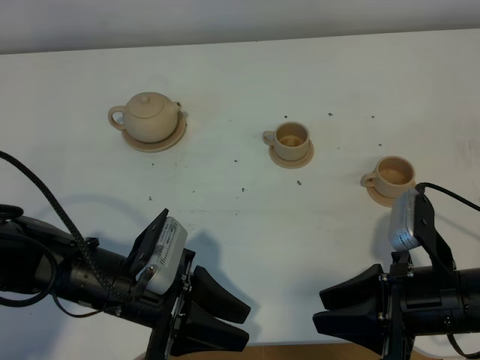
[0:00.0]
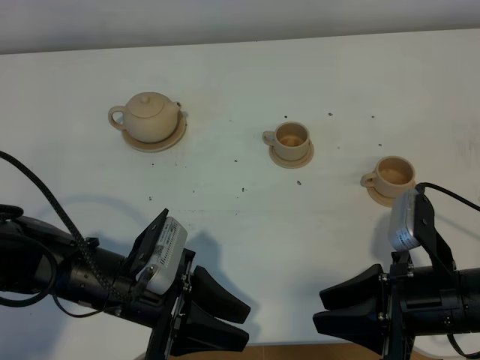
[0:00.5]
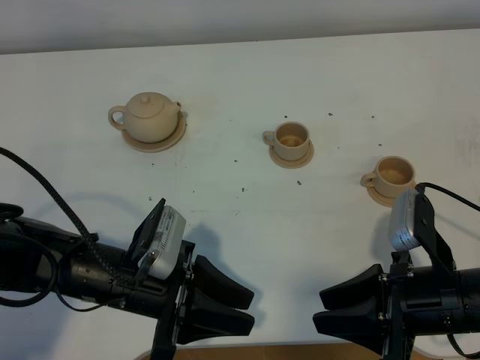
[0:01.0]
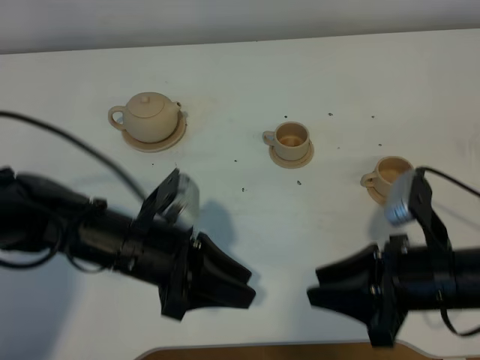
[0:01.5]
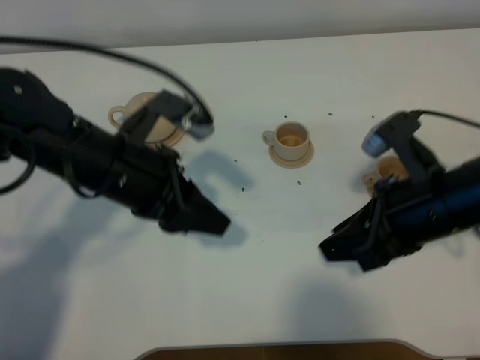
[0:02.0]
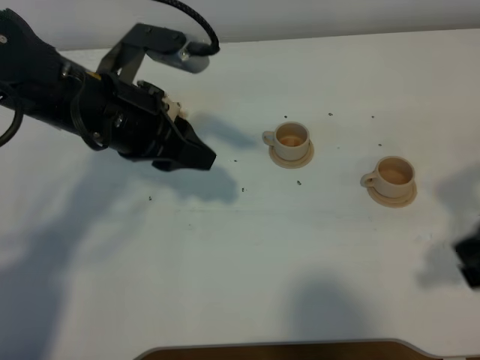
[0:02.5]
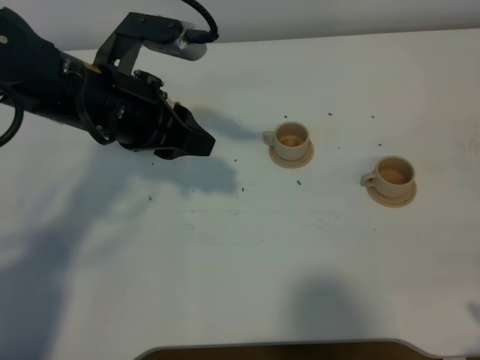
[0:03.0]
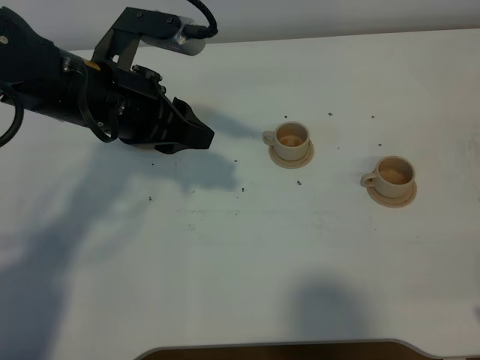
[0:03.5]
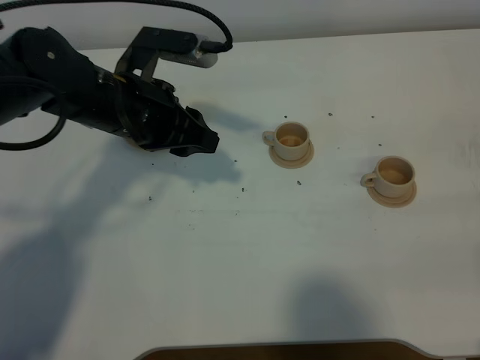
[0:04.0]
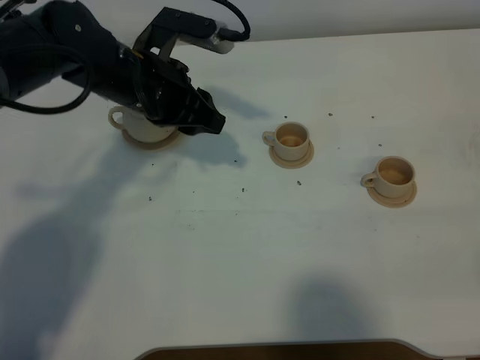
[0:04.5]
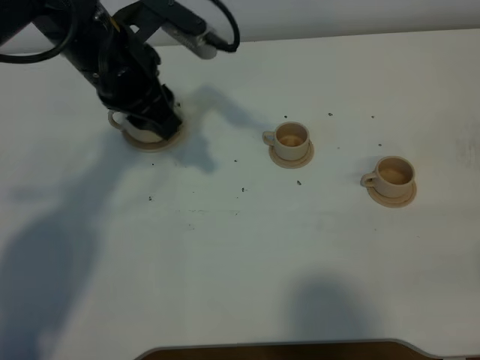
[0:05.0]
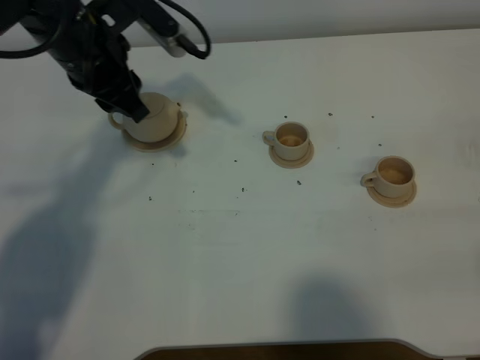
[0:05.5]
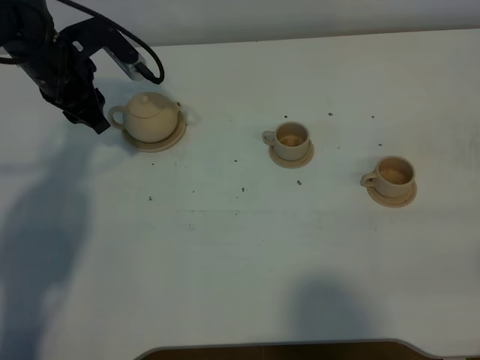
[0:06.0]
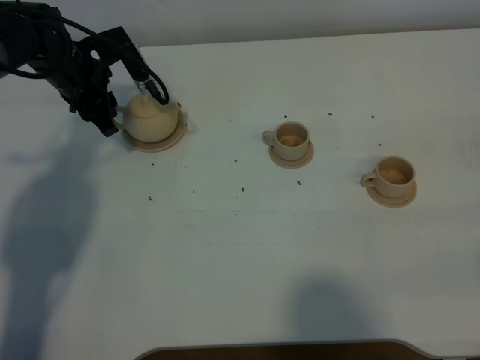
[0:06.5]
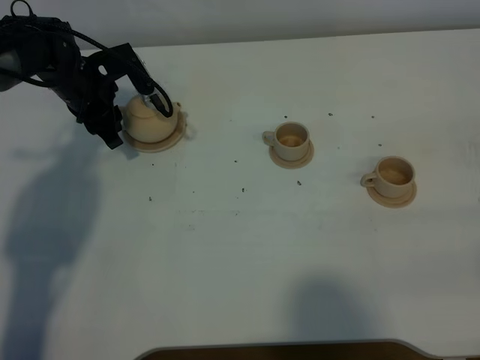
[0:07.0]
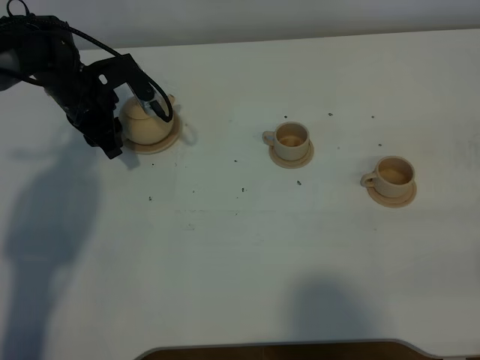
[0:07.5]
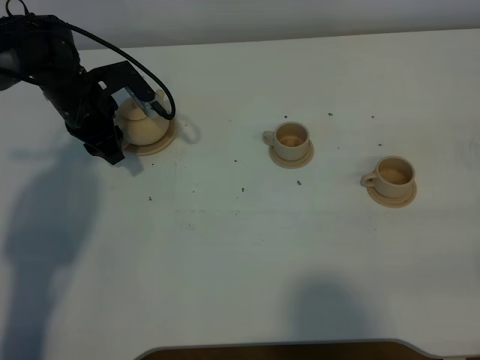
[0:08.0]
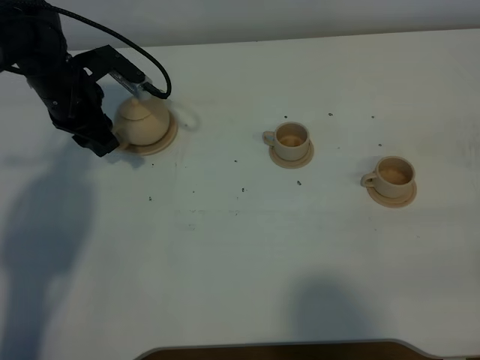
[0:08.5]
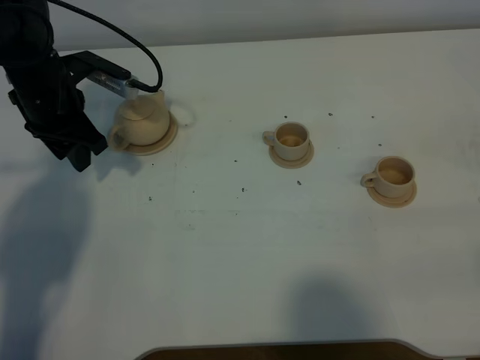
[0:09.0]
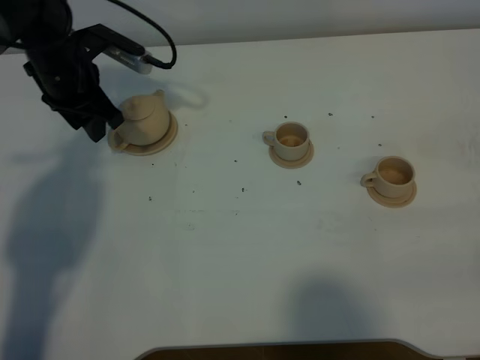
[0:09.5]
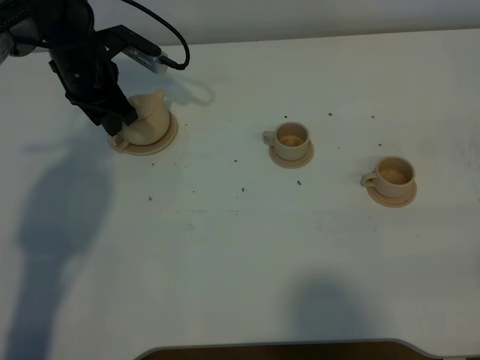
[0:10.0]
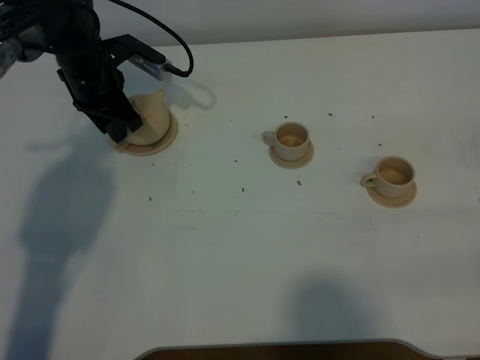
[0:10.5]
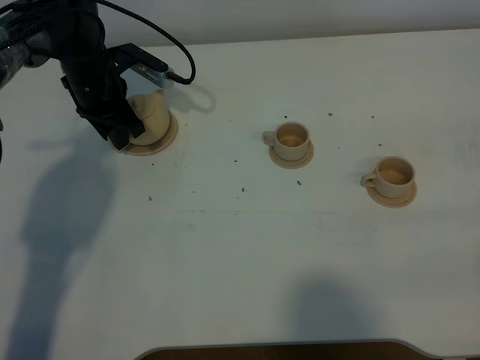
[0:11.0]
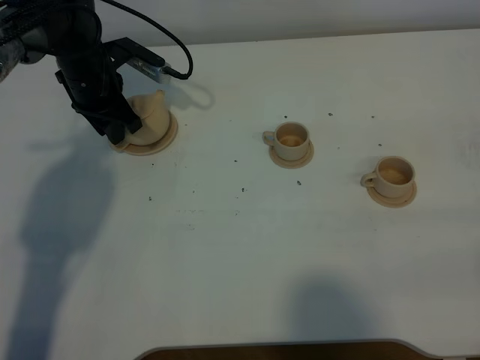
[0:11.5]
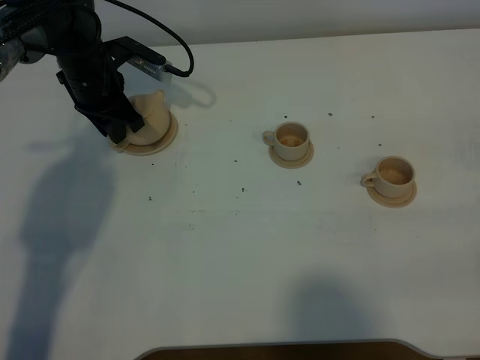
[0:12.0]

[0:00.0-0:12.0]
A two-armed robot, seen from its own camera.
Task of the whole recording: grasp the brown teapot and pour the tea into the two brown teacups one by one, put the brown teapot back in its original place.
0.0 to 2.0 s: The left gripper heads upward and forward, covering about 15 cm, while the right gripper travels forward and upward by approximately 10 cm.
2.0 to 4.0 s: The right gripper goes approximately 25 cm backward and to the right. The left gripper moves forward, some 5 cm.
4.0 to 6.0 s: The left gripper goes approximately 15 cm to the left and forward.
6.0 to 8.0 s: The left gripper heads downward, covering some 5 cm.
10.0 to 12.0 s: The grippers move only a little.

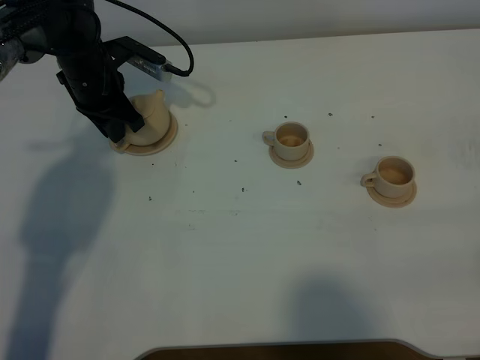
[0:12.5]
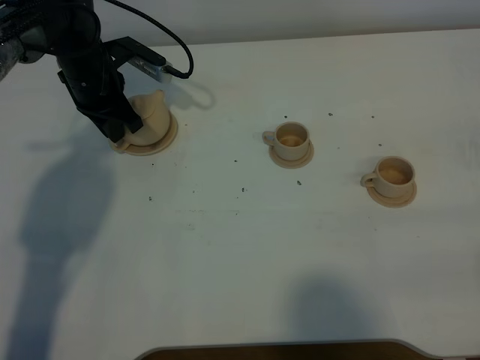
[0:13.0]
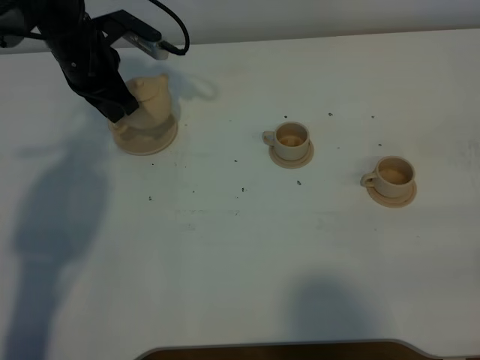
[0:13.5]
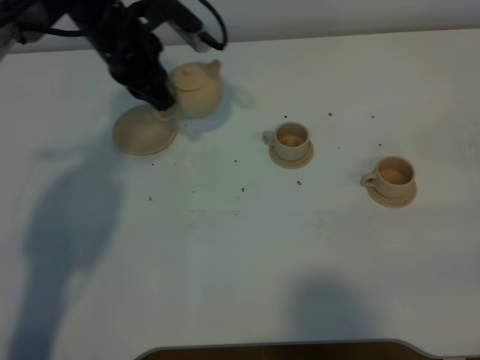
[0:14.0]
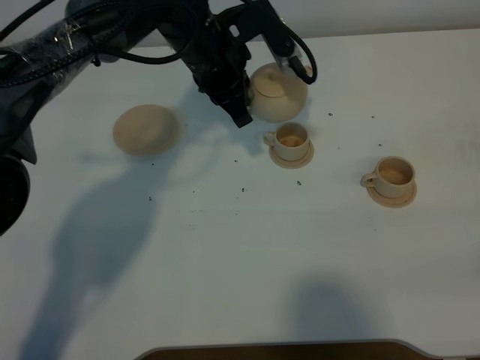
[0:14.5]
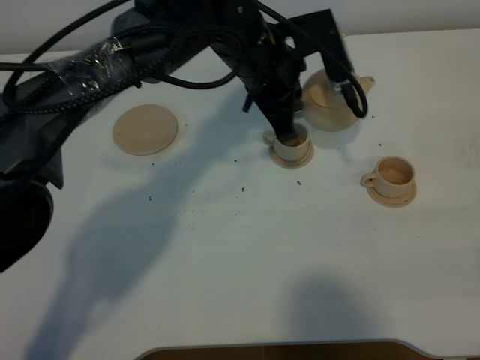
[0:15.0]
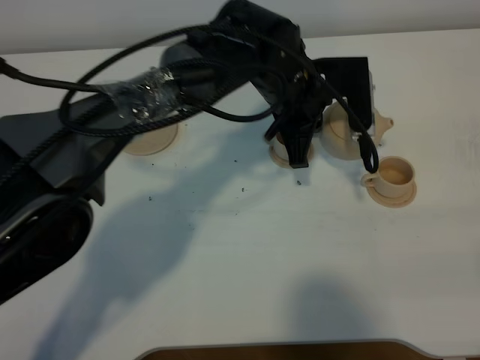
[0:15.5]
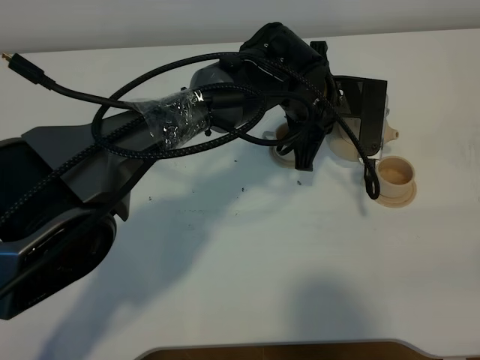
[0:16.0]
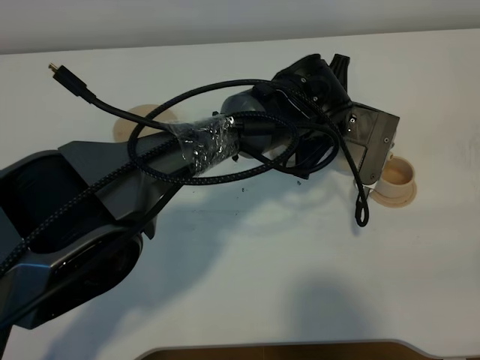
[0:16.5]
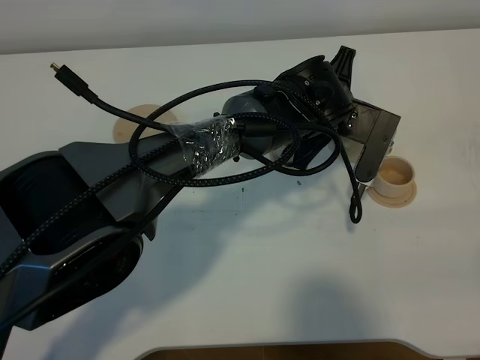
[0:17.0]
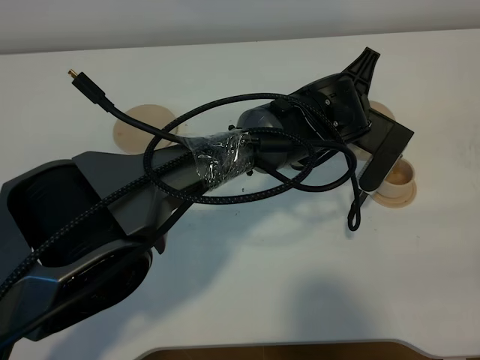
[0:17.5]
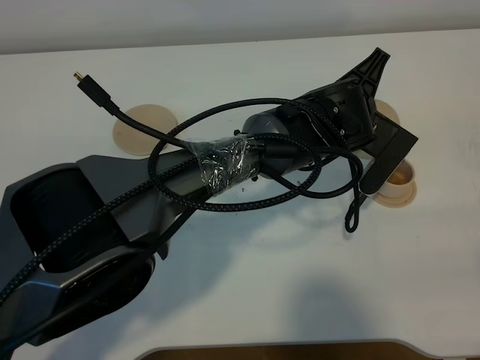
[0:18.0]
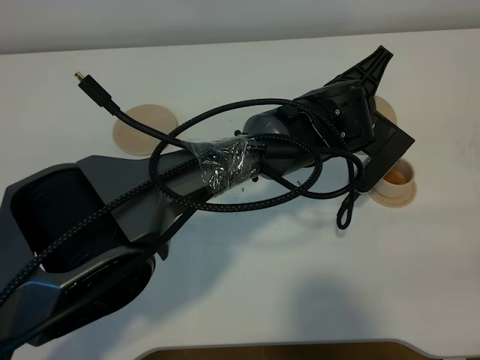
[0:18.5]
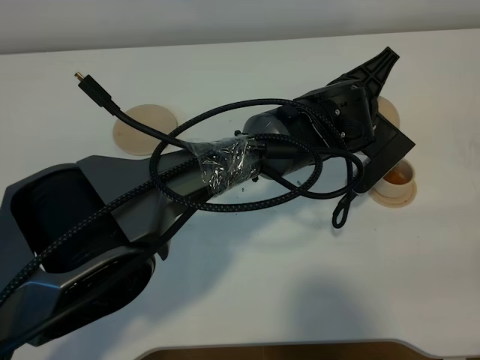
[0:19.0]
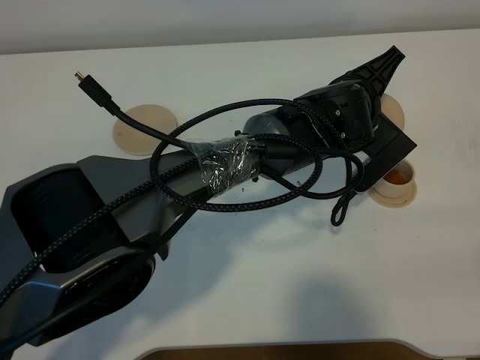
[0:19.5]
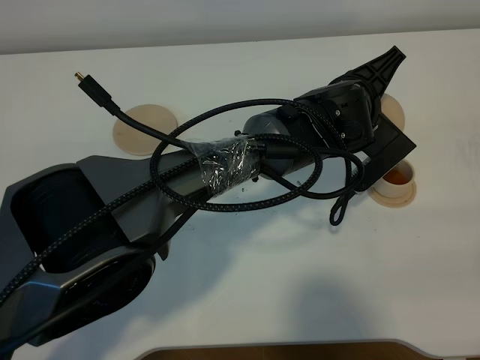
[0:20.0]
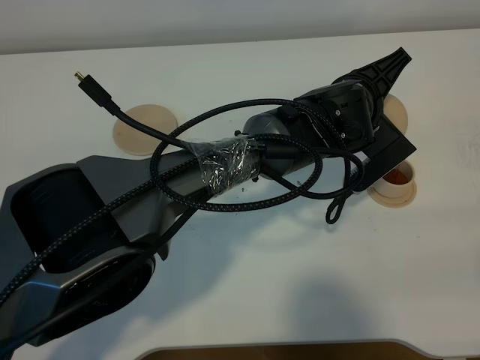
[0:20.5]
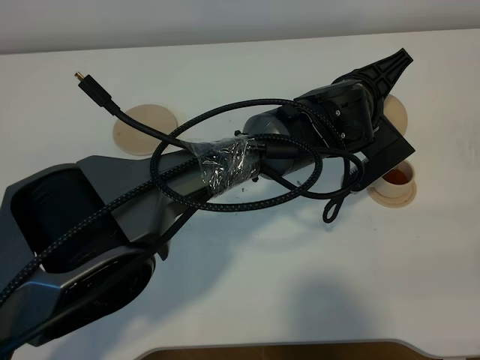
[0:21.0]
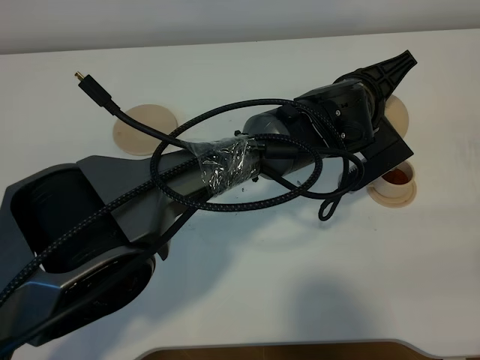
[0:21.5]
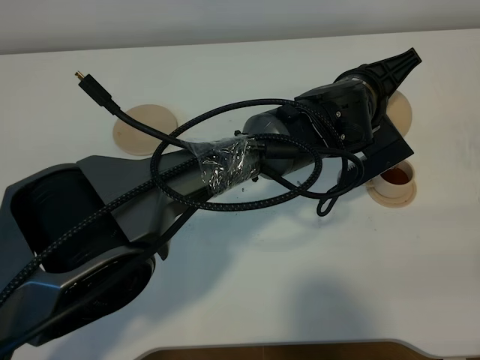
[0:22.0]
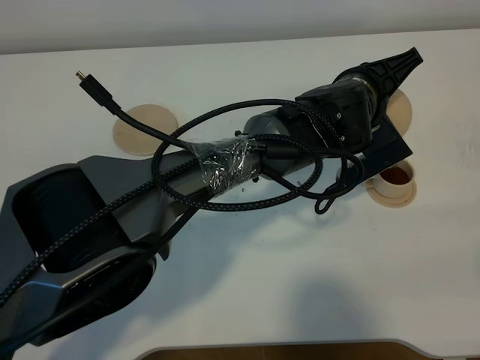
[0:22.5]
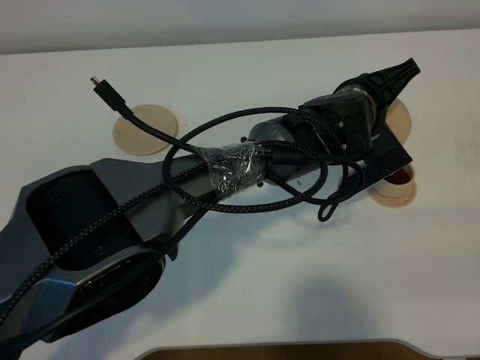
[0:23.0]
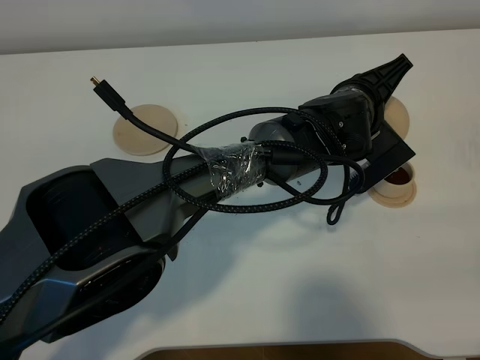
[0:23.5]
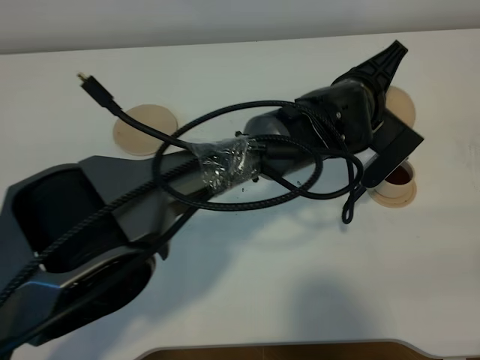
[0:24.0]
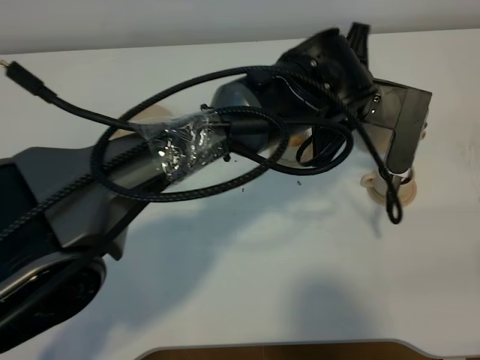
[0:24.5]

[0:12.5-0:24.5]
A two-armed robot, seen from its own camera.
Task of the whole recording: grasp the brown teapot and pour the tea into the two brown teacups one by one, put the brown teapot back in its original place.
12.5 to 14.5 s: The left gripper moves to the right and upward, roughly 20 cm.
14.5 to 16.5 s: The left gripper goes roughly 15 cm to the right, downward and backward.
18.5 to 22.5 s: The grippers stay close to where they were, moving slightly.
22.5 to 24.5 s: The left gripper shifts by about 5 cm.

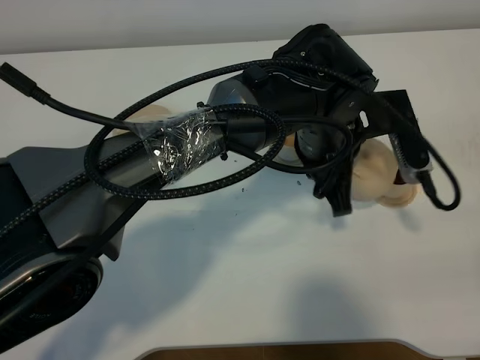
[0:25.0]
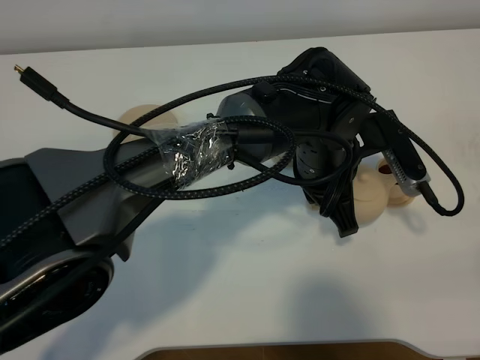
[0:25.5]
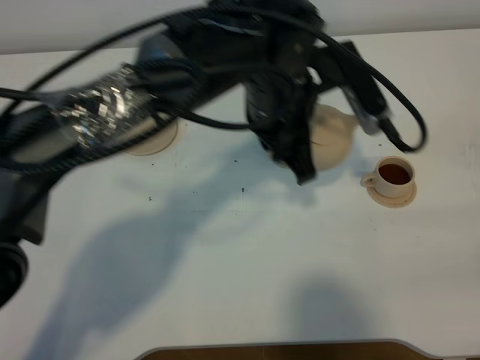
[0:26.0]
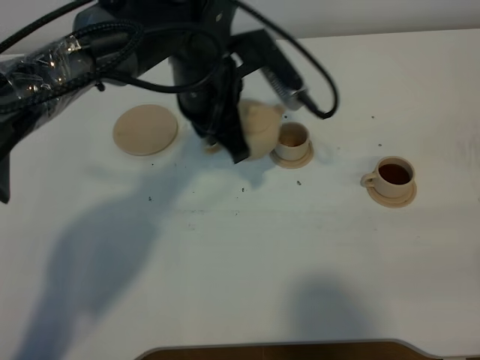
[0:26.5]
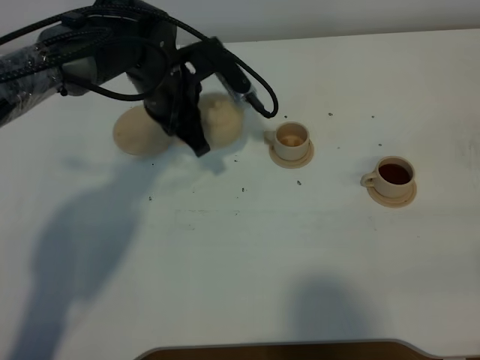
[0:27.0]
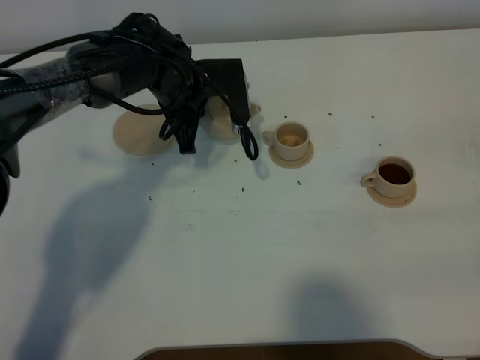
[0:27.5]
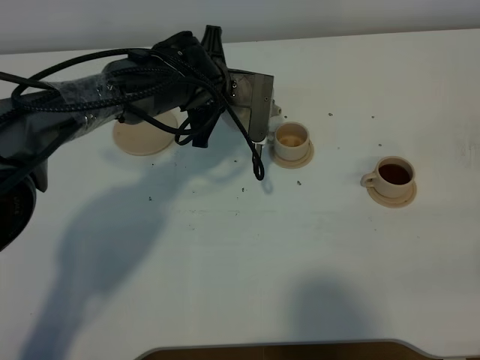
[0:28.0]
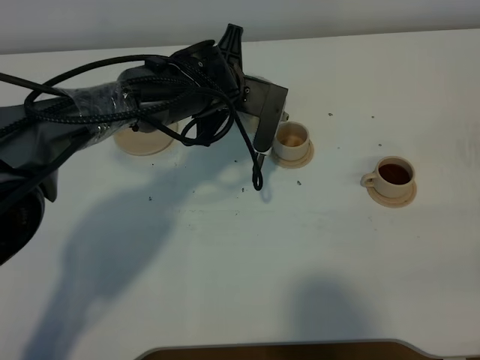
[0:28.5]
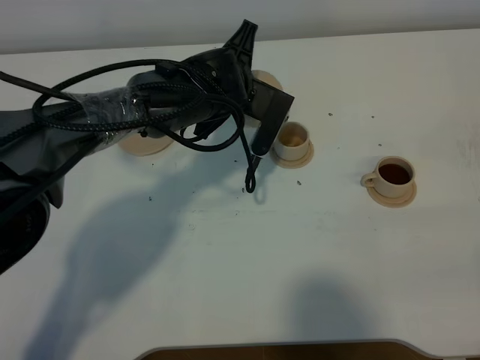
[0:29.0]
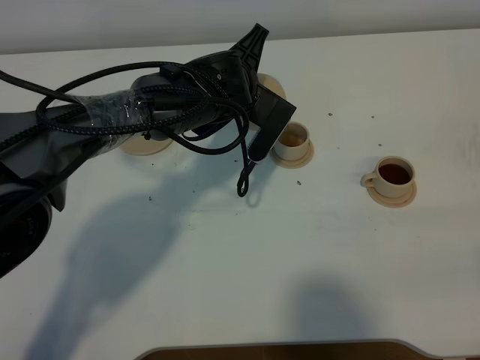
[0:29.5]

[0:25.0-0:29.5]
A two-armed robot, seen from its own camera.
Task of the whole recording: grasp the brown teapot and pour the tea into the two brown teacups one by one, put the brown teapot back in its original place.
25.0 to 27.0 s: The left gripper is displaced to the left and forward by roughly 20 cm.
27.0 to 29.5 s: The left gripper goes some 10 cm to the right.
